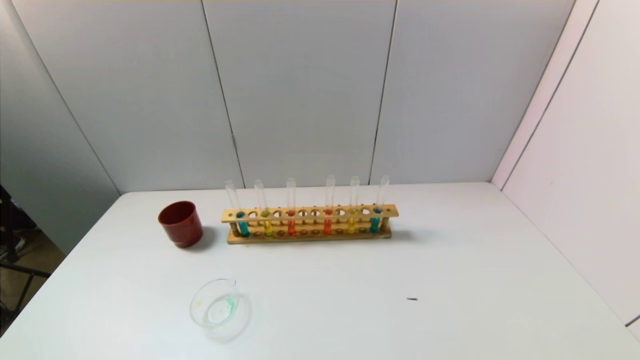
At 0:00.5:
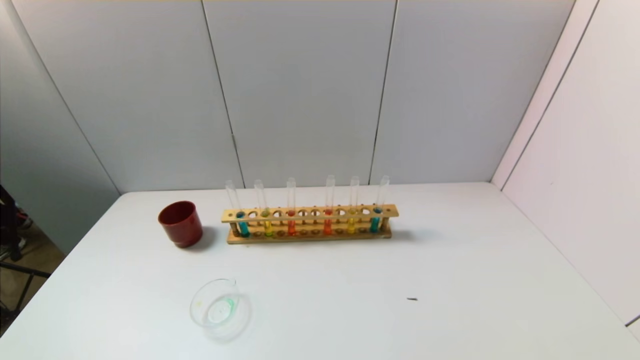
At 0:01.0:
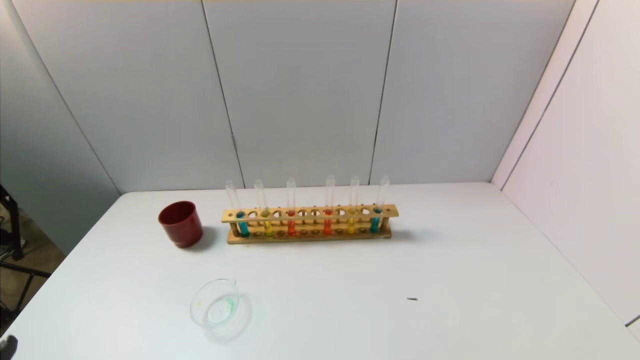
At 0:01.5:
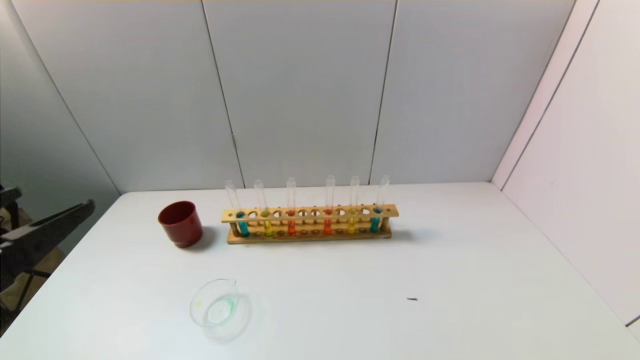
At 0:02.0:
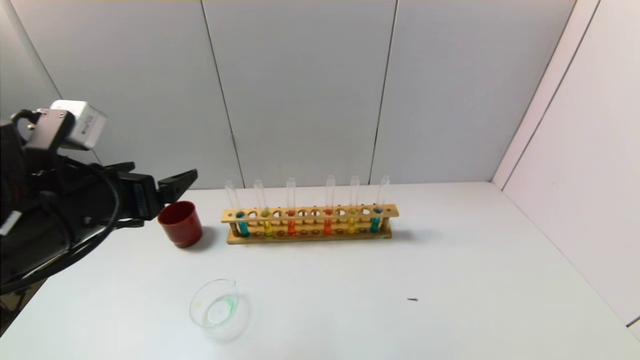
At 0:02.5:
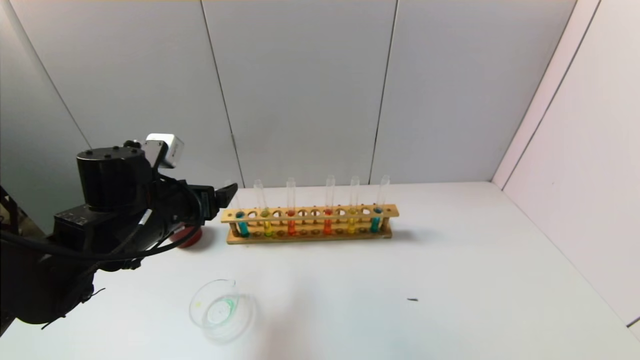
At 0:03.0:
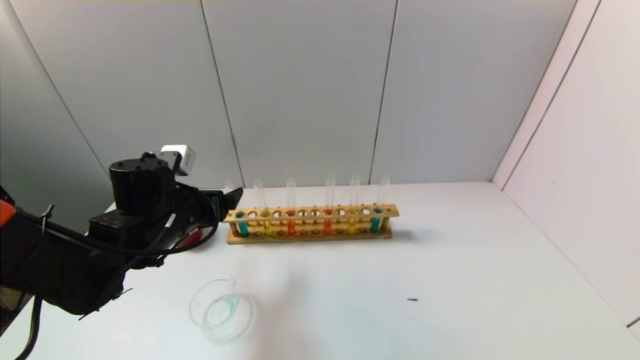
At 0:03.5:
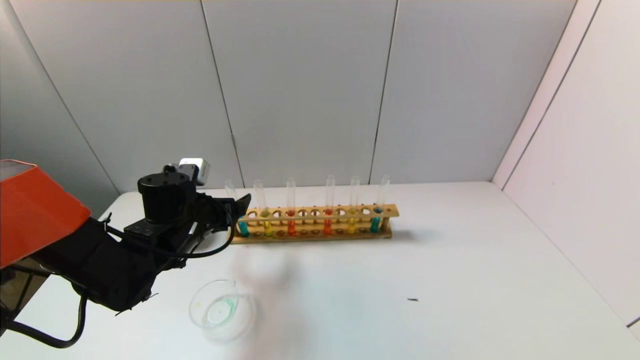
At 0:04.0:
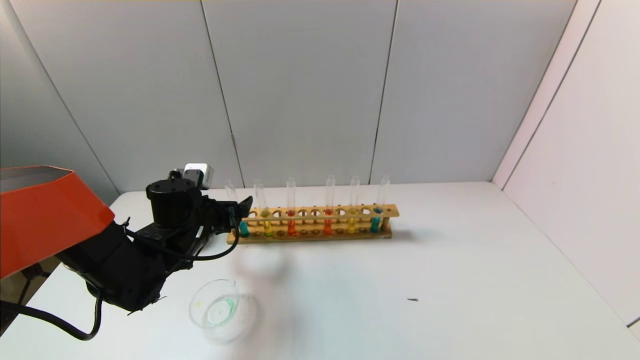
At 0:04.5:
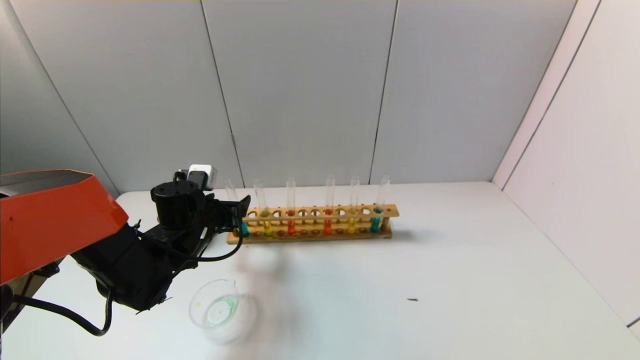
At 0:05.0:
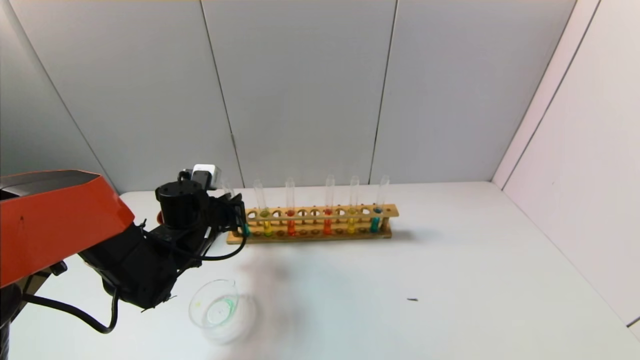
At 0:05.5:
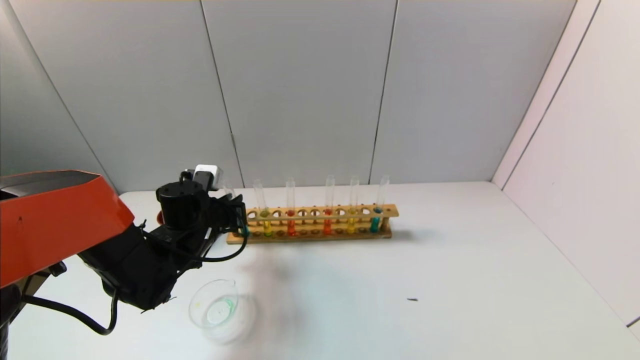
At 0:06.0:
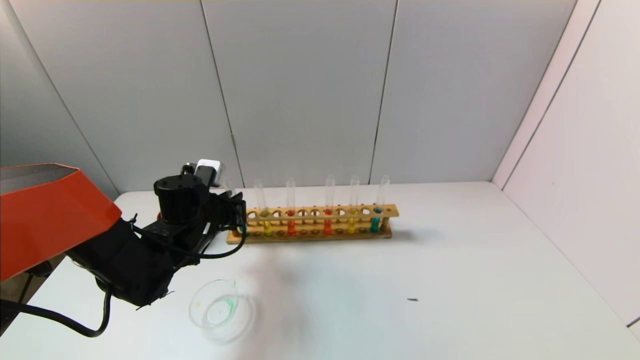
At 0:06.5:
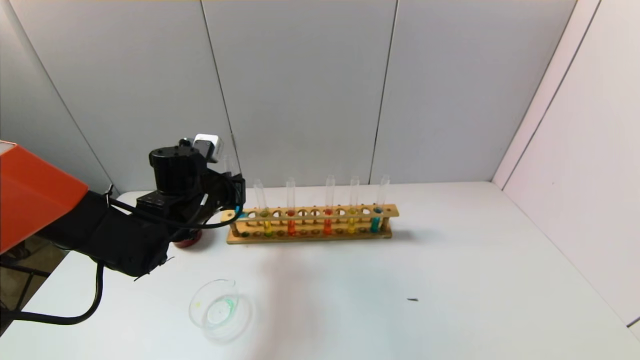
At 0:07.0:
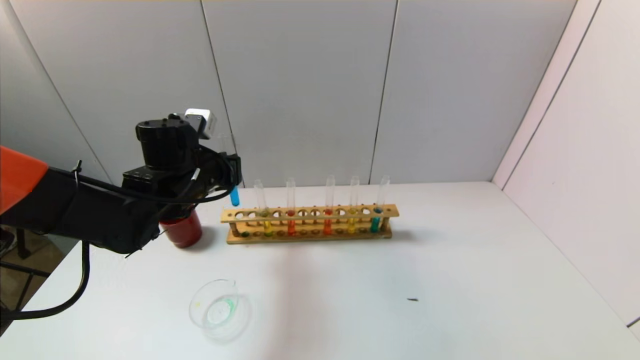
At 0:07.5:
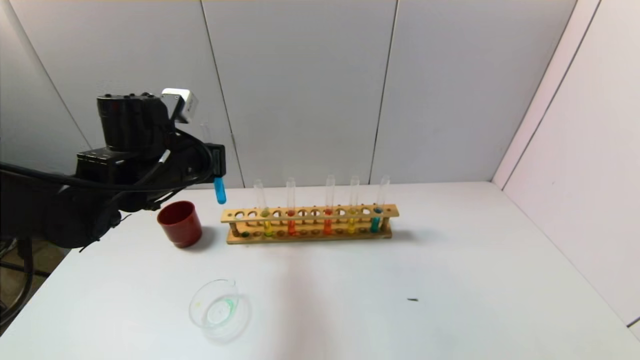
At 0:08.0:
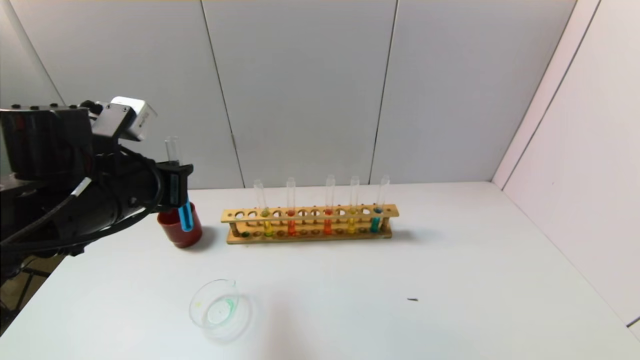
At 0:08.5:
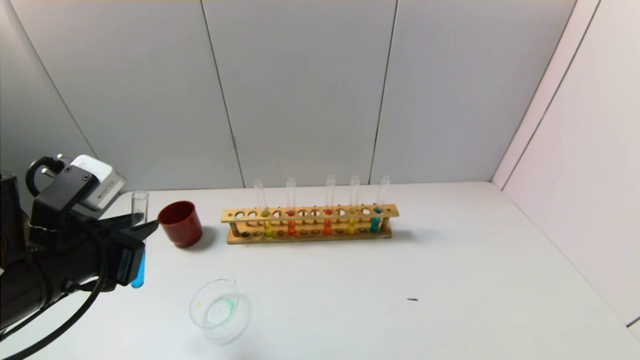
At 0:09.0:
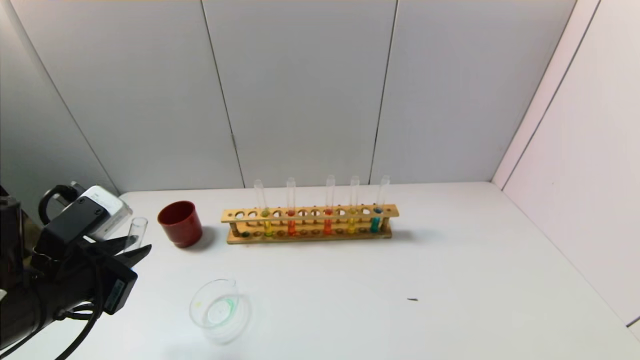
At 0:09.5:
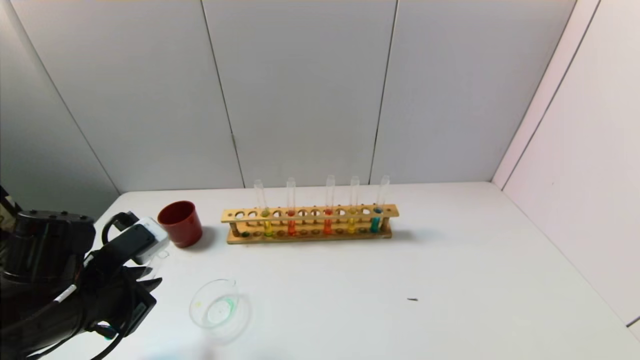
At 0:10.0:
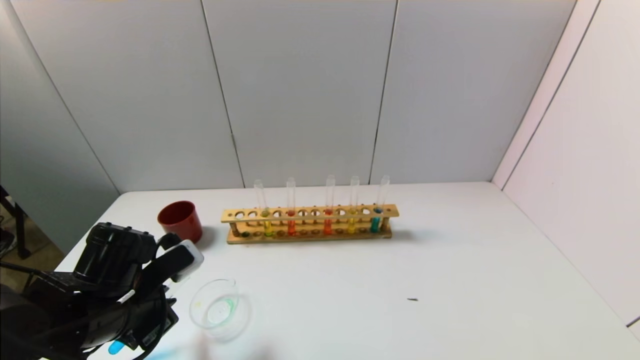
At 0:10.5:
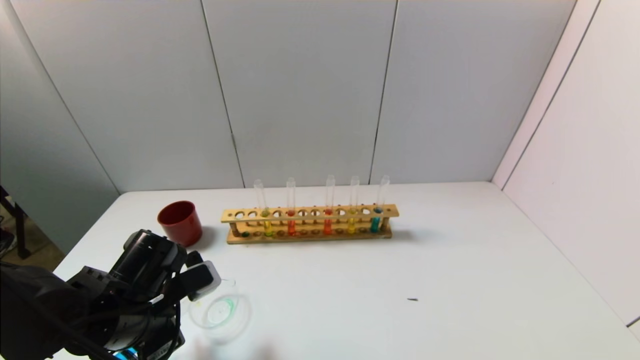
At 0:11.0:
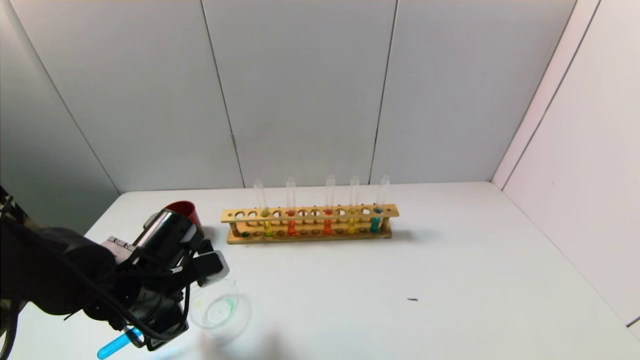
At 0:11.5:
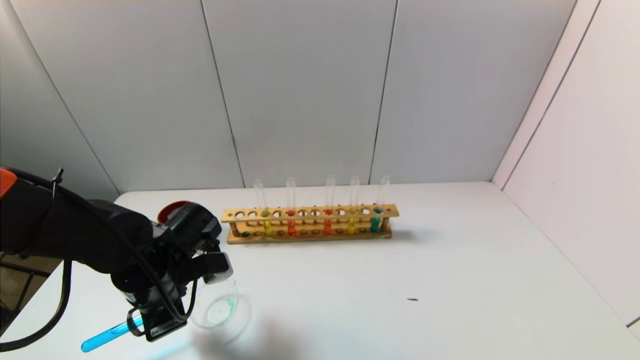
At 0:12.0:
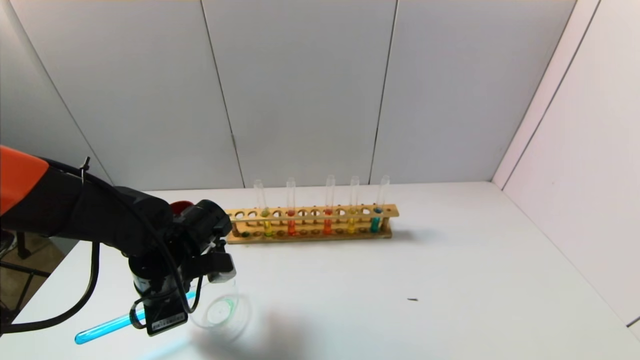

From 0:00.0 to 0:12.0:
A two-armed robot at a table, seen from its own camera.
Task of the whole recording: pick up the test tube with yellow pigment and the test tube with blue pigment by grippers and pour them into the beaker.
Step, from 0:00.0 to 0:05.0: Grasp the blue reagent with the left gripper.
From 0:00.0 to 0:02.0: The left gripper moves forward and upward, approximately 25 cm.
From 0:02.0 to 0:04.0: The left gripper is displaced downward and forward by about 20 cm.
From 0:04.0 to 0:06.0: The left gripper closes its fingers.
From 0:06.0 to 0:08.0: The left gripper goes some 15 cm upward and backward.
From 0:08.0 to 0:10.0: The left gripper is displaced downward by about 10 cm.
From 0:10.0 to 0:12.0: The left gripper moves forward, about 5 cm.

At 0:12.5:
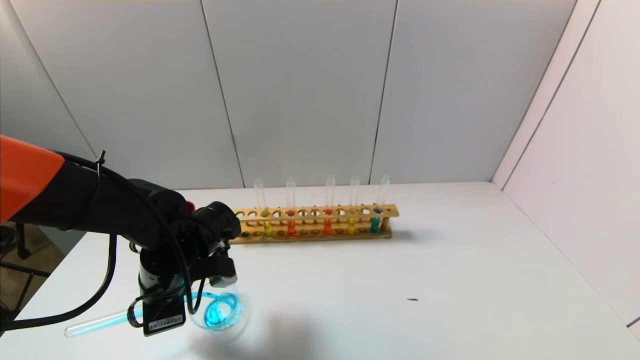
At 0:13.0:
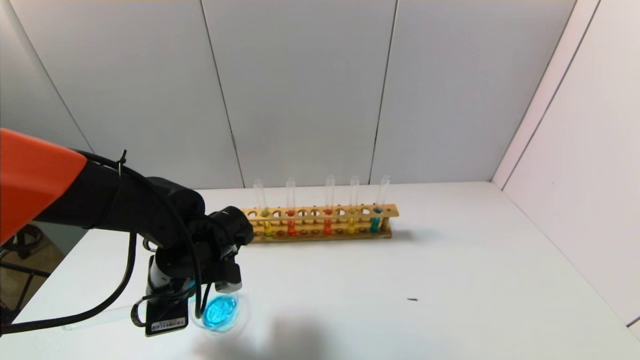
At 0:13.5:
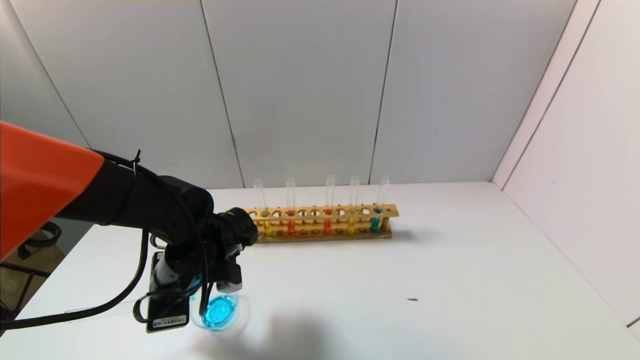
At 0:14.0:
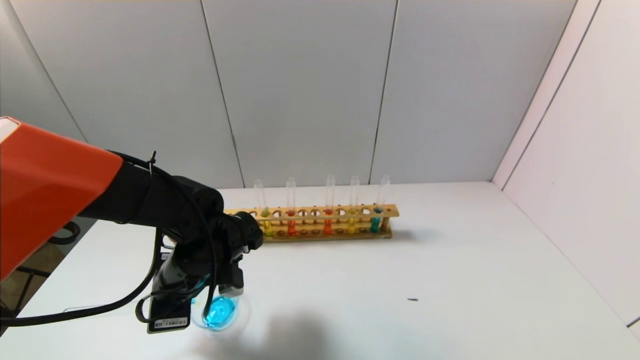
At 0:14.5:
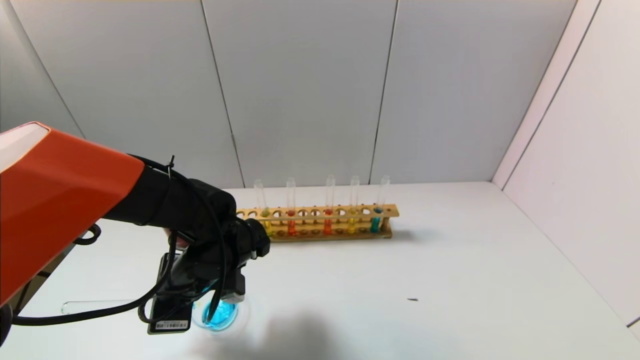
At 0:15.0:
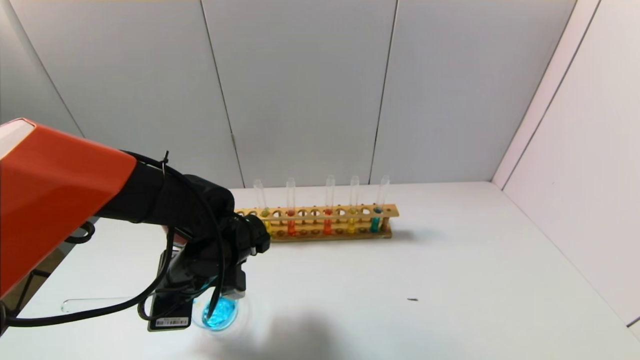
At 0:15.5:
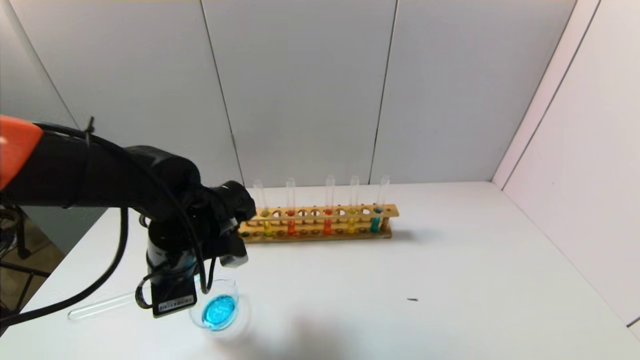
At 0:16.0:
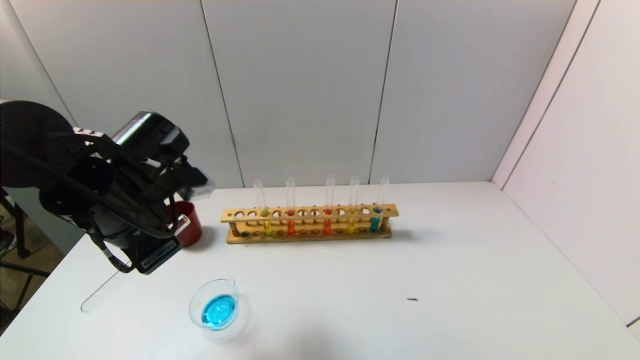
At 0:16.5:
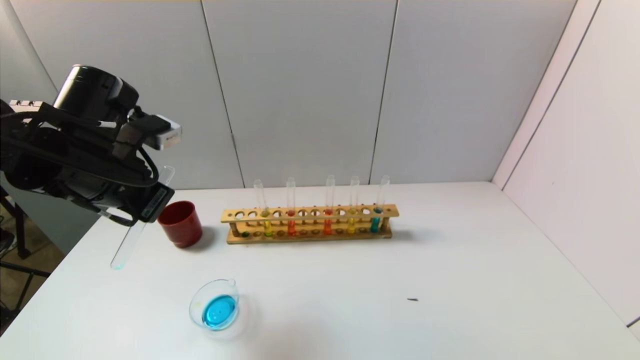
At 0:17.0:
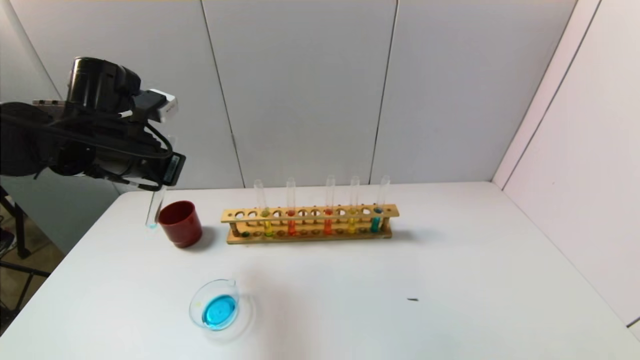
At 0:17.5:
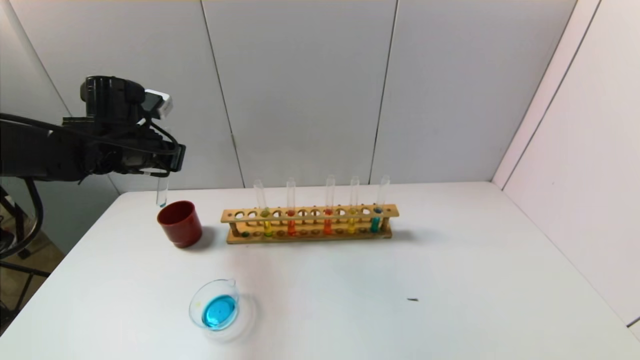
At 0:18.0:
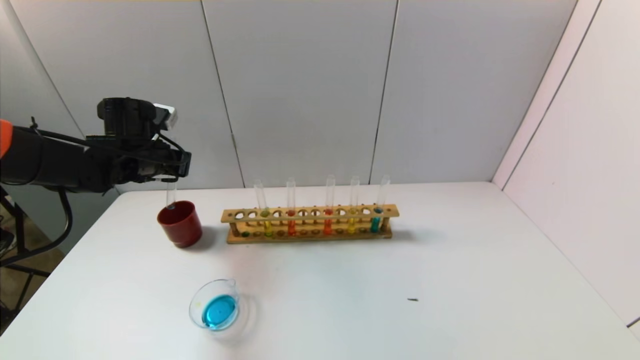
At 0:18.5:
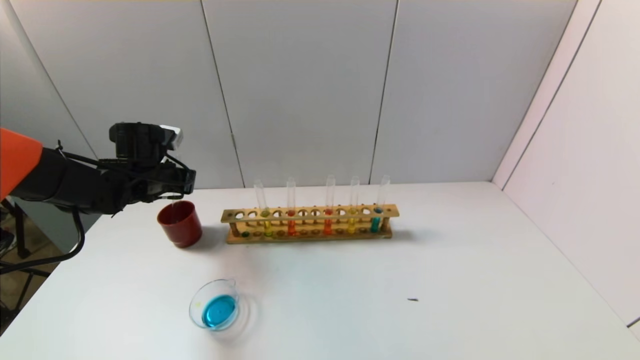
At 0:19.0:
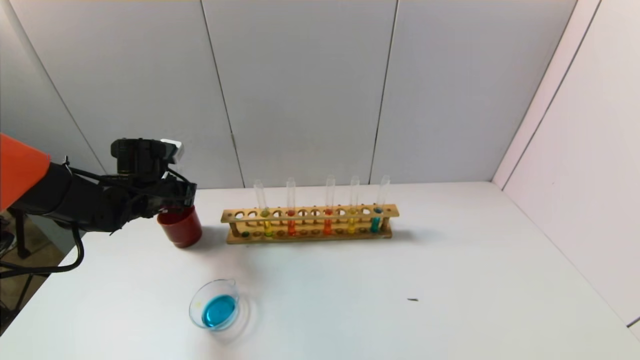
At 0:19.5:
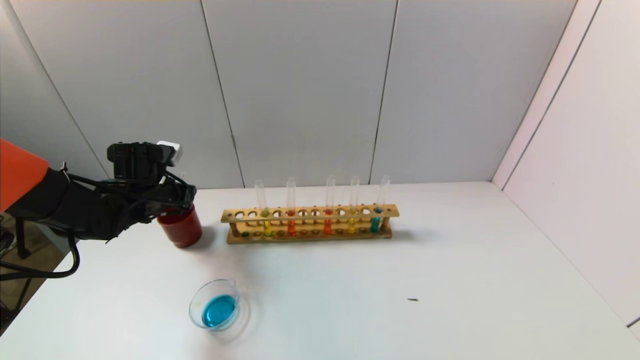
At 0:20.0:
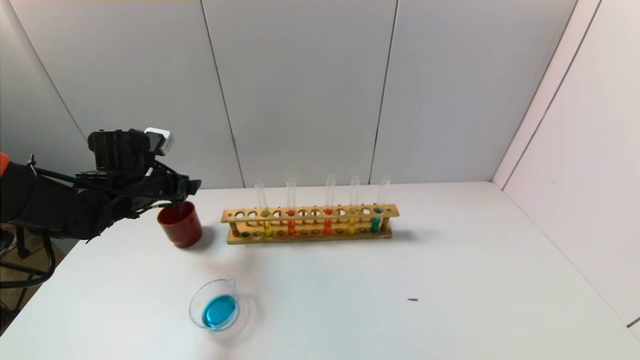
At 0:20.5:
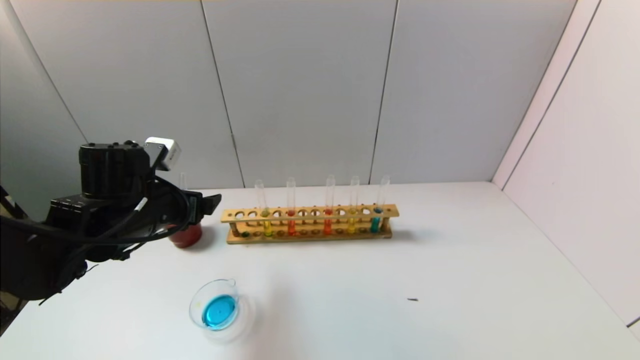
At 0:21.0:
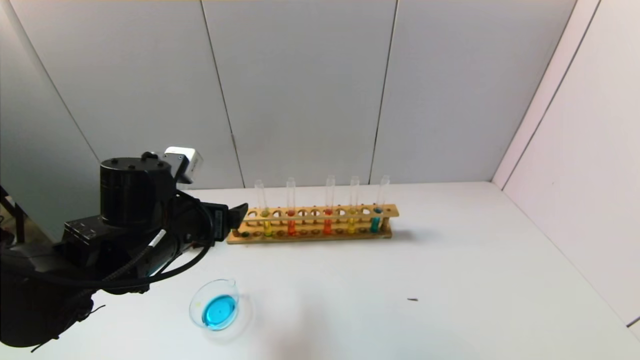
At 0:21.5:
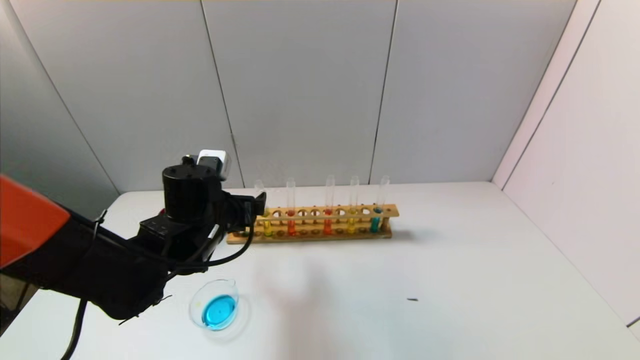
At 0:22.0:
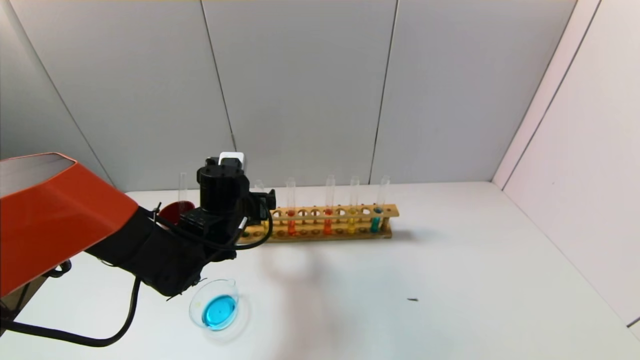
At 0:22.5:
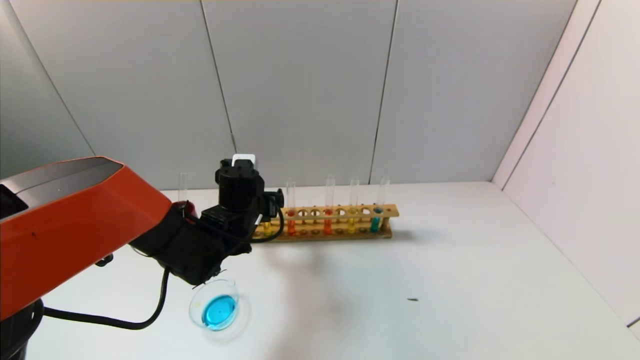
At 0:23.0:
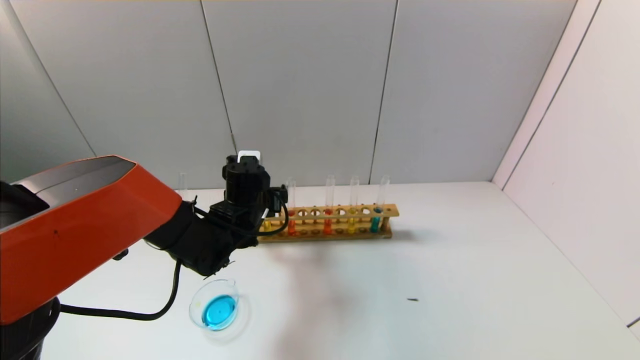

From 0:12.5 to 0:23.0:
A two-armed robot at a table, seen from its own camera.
Task of the whole recording: pick up the test tube with yellow pigment and the test tube with blue pigment by grippers and pour them into the beaker.
Step, from 0:14.5 to 0:19.5: Place the test tube into the brown cup with the left gripper.
From 0:12.5 to 0:14.5: The grippers make only small movements.
From 0:14.5 to 0:16.5: The left gripper shifts some 15 cm upward and to the left.
From 0:16.5 to 0:19.0: The left gripper travels forward and downward by some 15 cm.
From 0:19.0 to 0:21.0: The left gripper heads backward and to the right, covering roughly 20 cm, and opens.
From 0:21.0 to 0:23.0: The left gripper is displaced forward, to the right and downward by approximately 15 cm.
